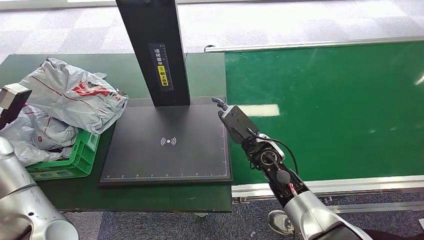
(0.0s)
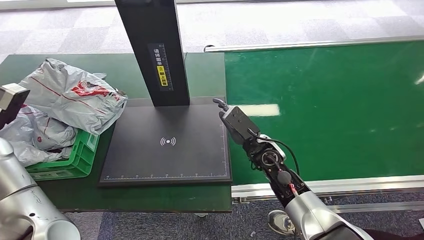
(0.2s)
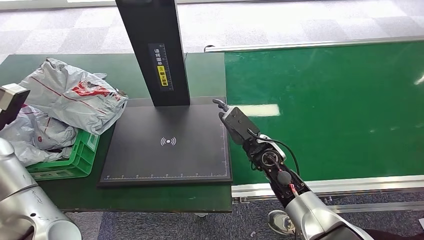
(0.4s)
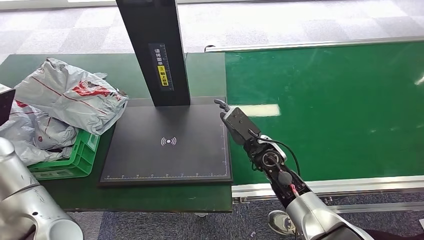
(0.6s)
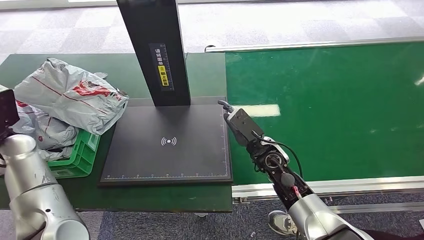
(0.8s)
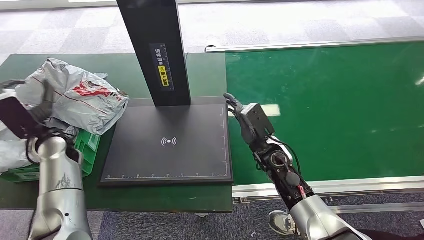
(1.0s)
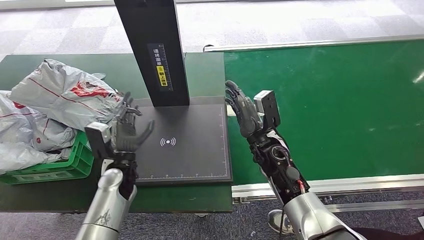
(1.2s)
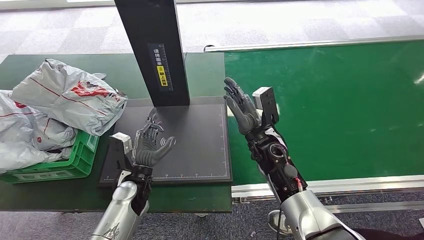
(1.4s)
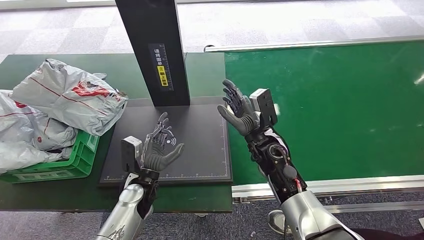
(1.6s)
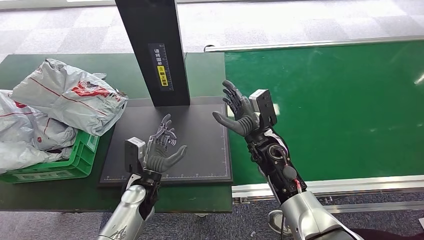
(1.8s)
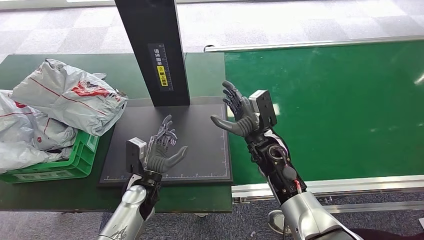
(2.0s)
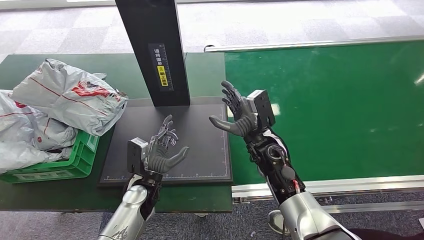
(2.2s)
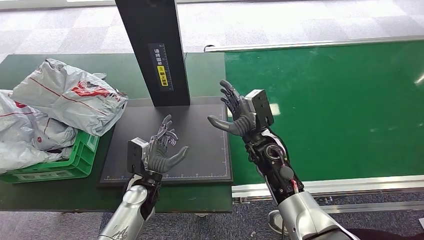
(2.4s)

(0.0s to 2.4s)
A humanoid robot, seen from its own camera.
Step, 0.0s - 2.4s: Place the package into the parcel locker.
0.0s - 1.2s: The left hand heads to the right and downward, covering some 30 cm.
1.2s - 2.4s: The left hand shifts about 5 cm to the right.
